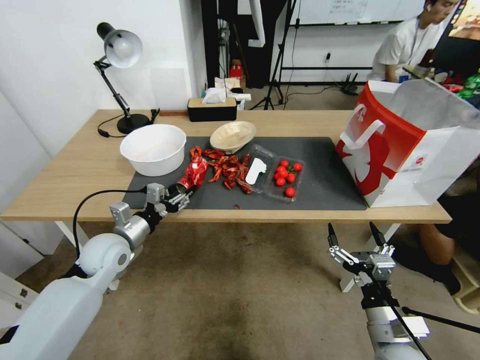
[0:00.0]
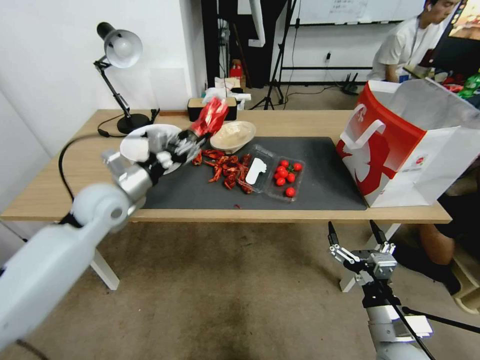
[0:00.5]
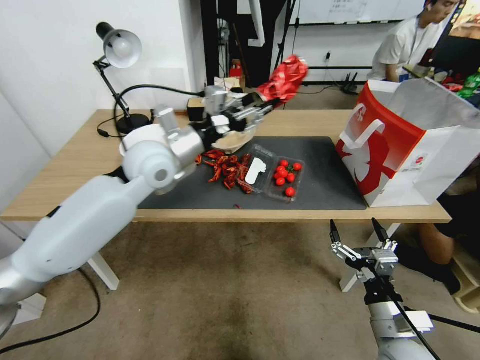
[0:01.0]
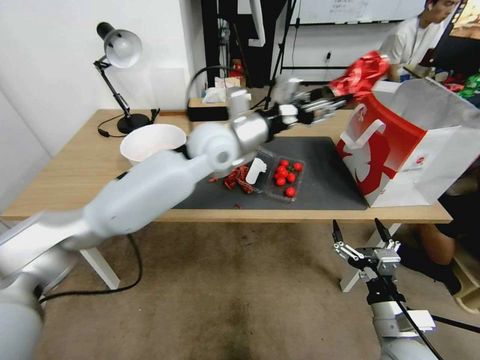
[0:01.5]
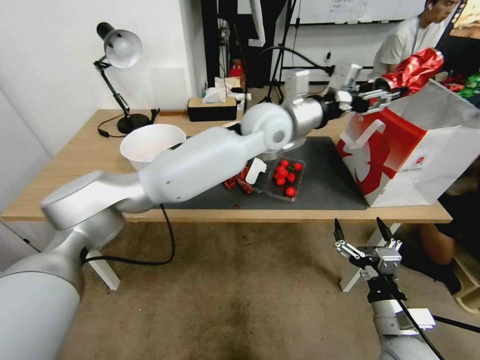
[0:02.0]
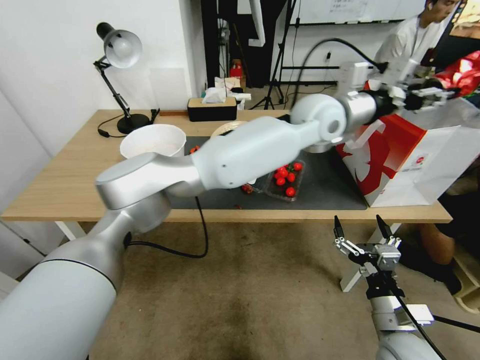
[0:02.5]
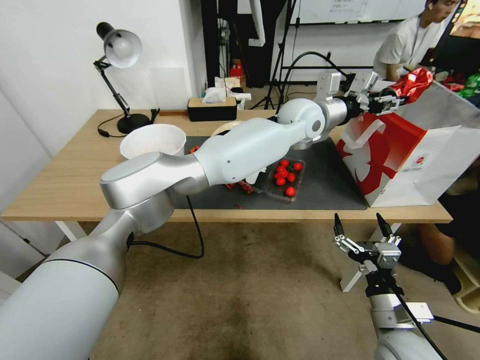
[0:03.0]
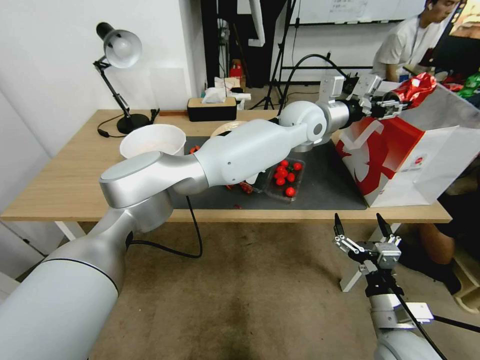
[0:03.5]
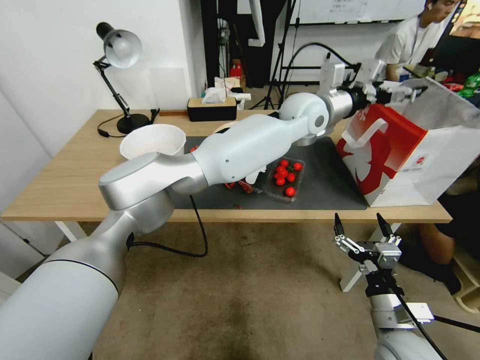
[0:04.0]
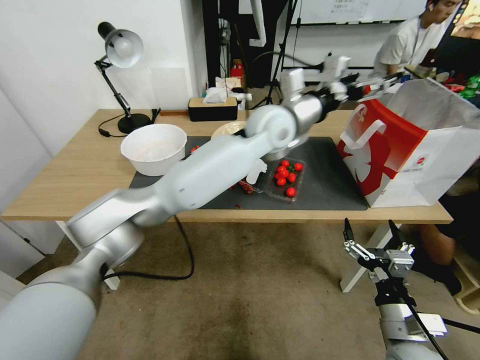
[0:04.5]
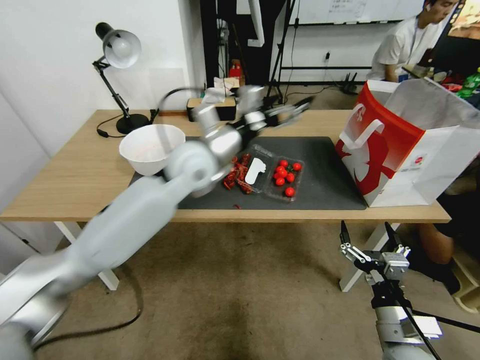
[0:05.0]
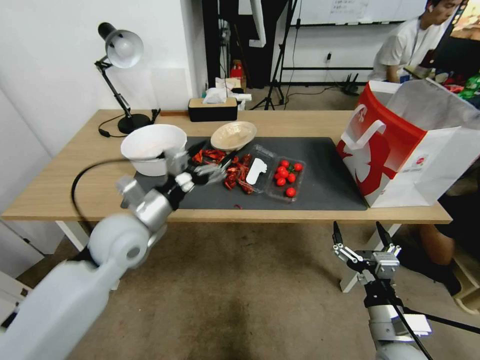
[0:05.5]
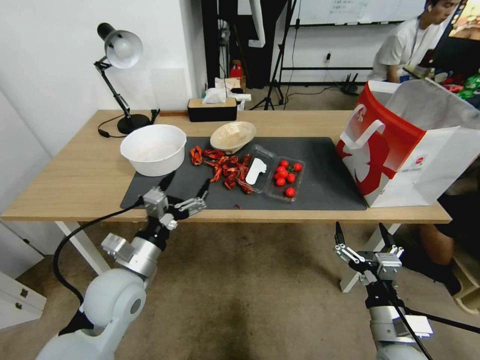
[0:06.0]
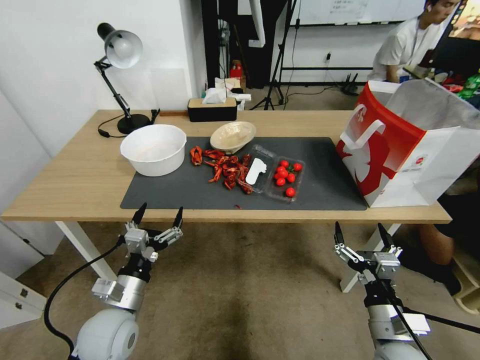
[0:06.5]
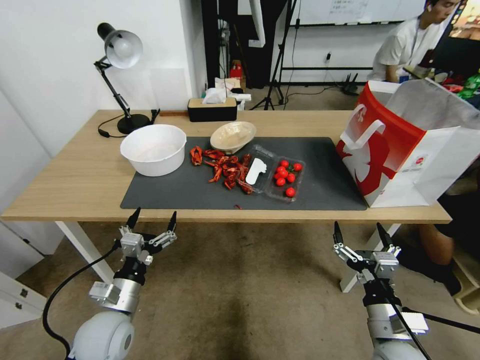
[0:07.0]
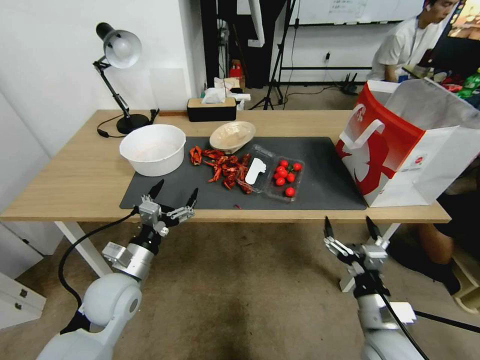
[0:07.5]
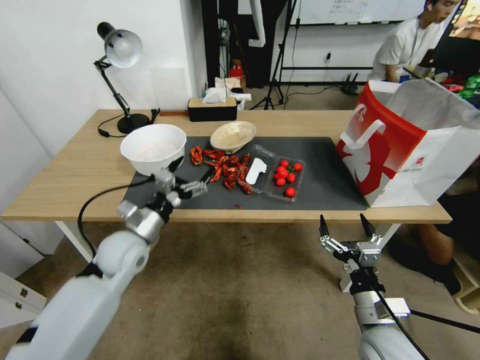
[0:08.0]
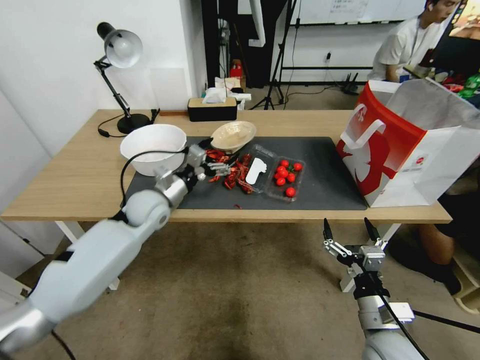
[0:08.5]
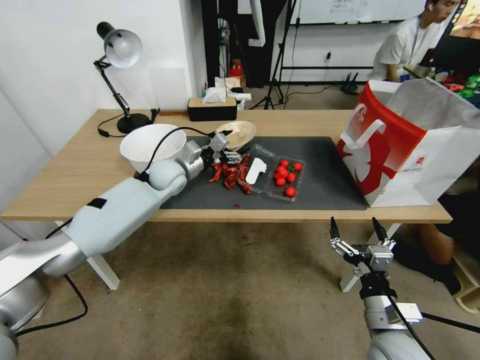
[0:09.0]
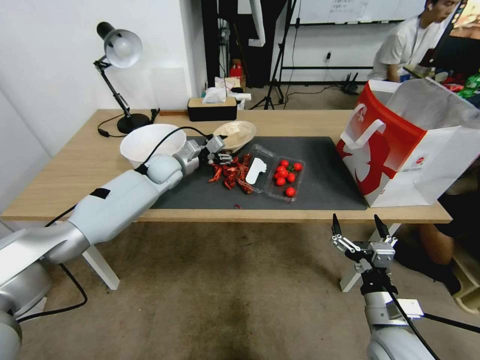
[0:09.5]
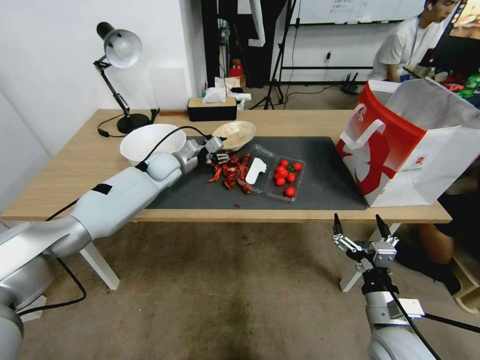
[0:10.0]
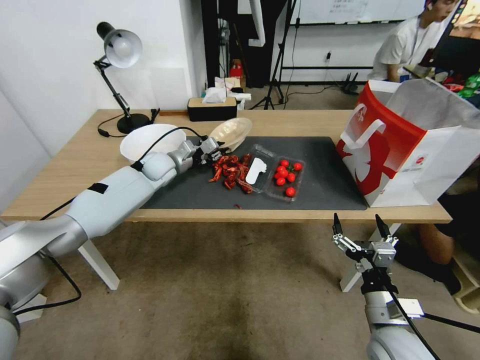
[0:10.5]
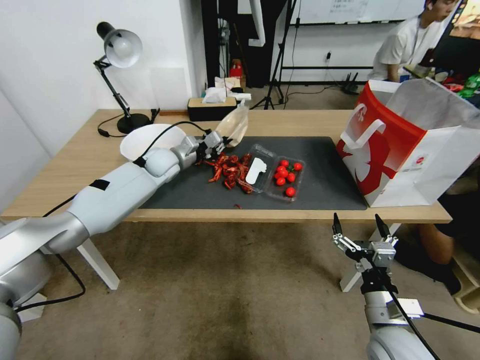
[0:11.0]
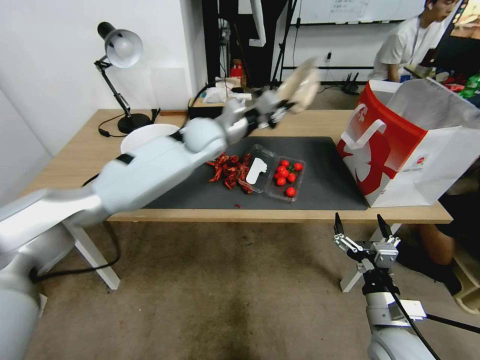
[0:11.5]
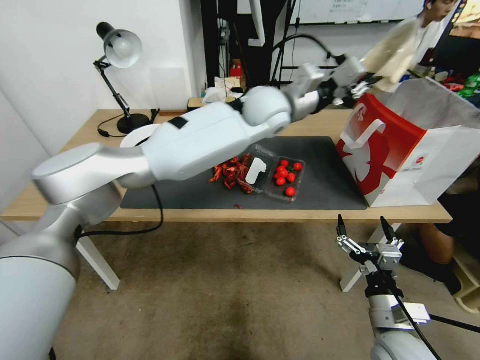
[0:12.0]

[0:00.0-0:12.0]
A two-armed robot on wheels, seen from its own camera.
0:00.0 to 0:02.0: The left gripper moves to the right, upward and forward, approximately 40 cm.
0:02.0 to 0:04.0: The left gripper travels to the right and forward by approximately 10 cm, and opens.
0:04.0 to 0:06.0: The left gripper moves to the left, backward and downward, about 50 cm.
0:06.0 to 0:08.0: The left gripper moves forward, approximately 10 cm.
0:08.0 to 0:10.0: The left gripper shifts about 25 cm forward, and closes up.
0:10.0 to 0:12.0: The left gripper heads to the right and upward, covering about 35 cm, and closes.

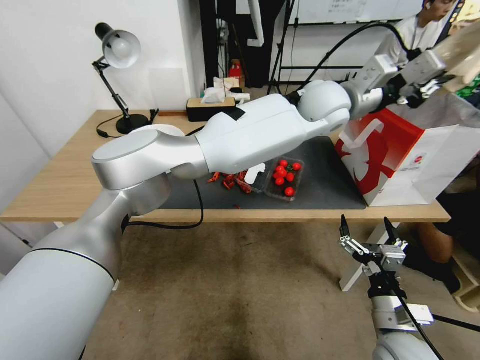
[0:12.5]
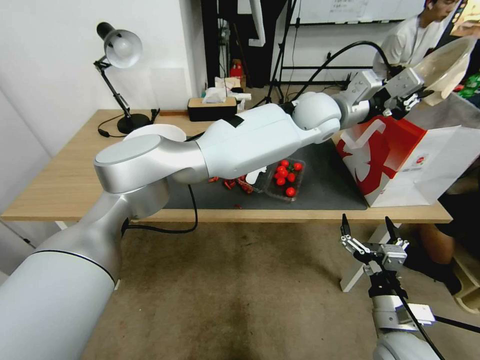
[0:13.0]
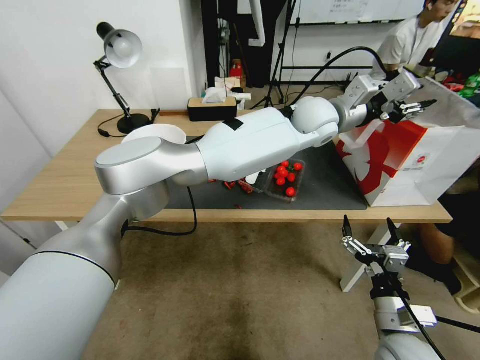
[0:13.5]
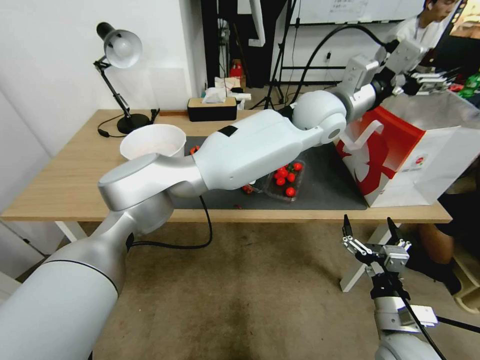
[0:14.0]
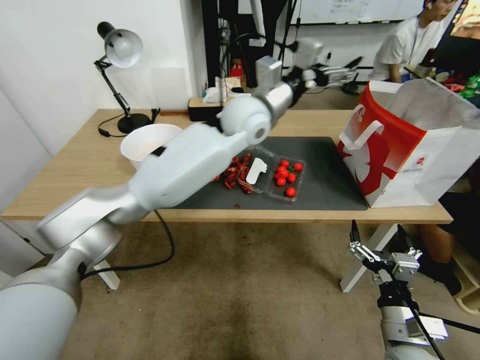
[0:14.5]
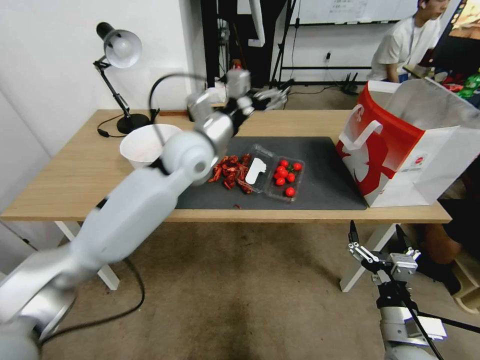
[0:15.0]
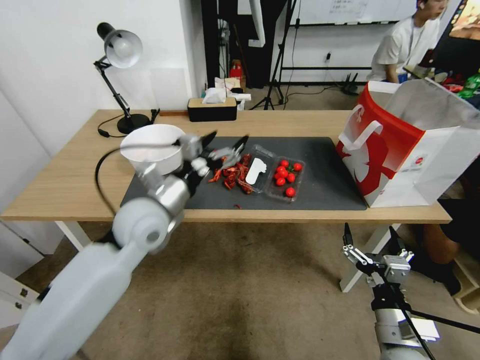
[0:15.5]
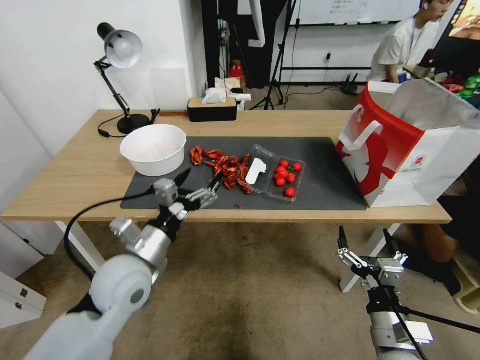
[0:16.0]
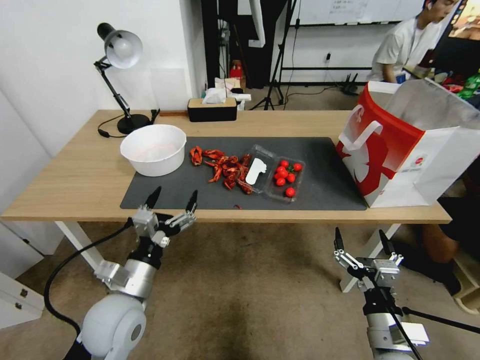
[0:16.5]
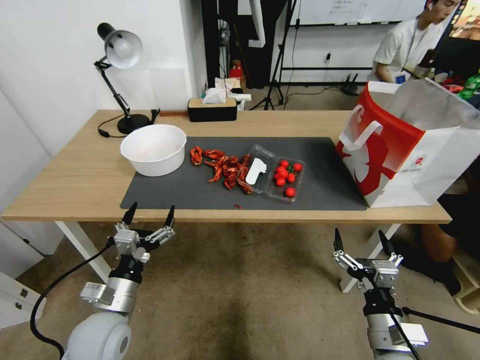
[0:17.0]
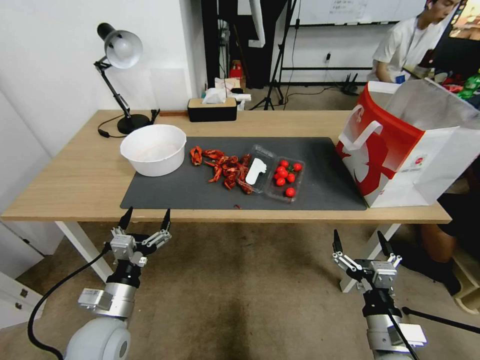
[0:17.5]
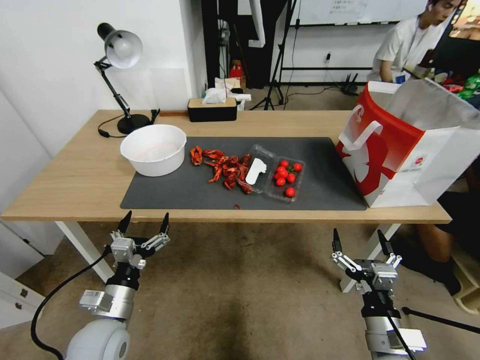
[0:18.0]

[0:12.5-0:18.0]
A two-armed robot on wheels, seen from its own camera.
0:12.5 to 0:14.5: The left gripper is displaced to the left by about 15 cm, and opens its fingers.
0:14.5 to 0:16.0: The left gripper moves backward, to the left and downward, roughly 40 cm.
0:16.0 to 0:18.0: The left gripper is displaced downward, backward and to the left by roughly 15 cm.
